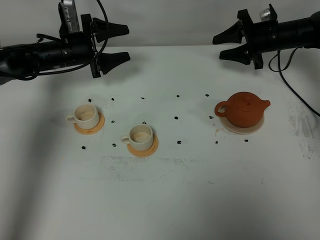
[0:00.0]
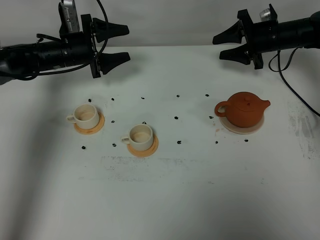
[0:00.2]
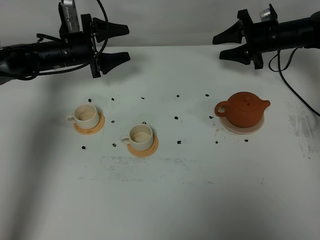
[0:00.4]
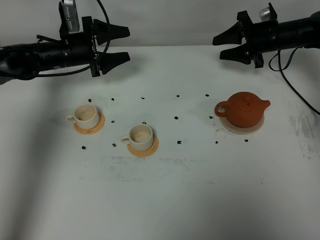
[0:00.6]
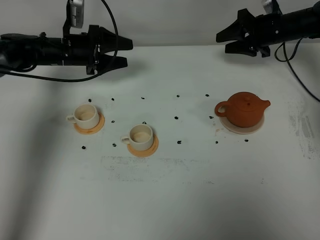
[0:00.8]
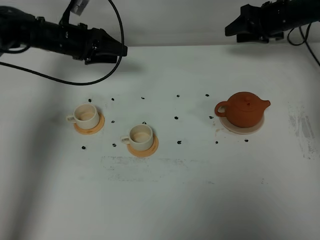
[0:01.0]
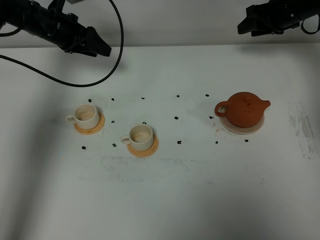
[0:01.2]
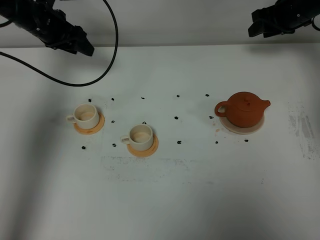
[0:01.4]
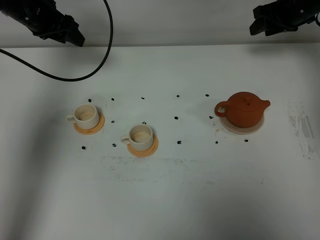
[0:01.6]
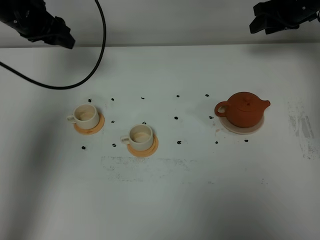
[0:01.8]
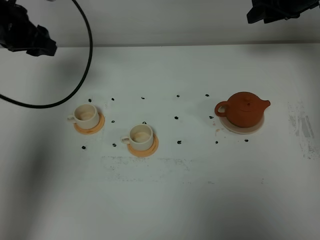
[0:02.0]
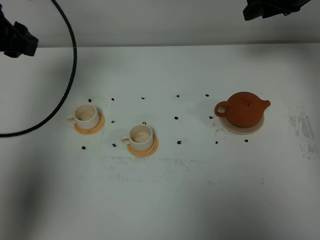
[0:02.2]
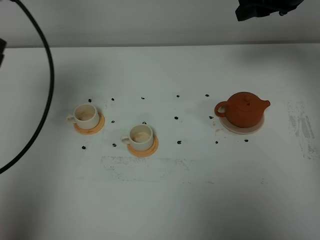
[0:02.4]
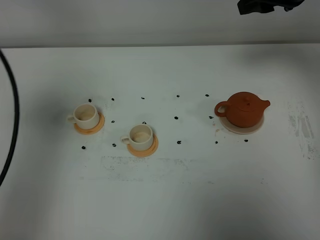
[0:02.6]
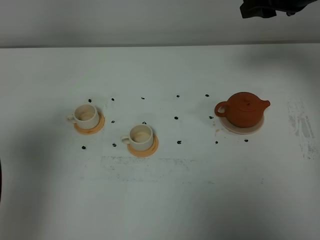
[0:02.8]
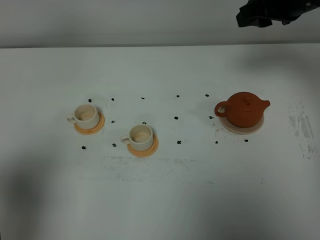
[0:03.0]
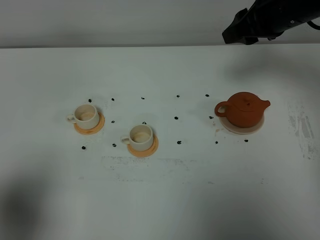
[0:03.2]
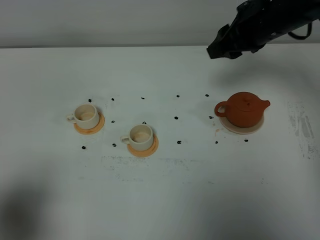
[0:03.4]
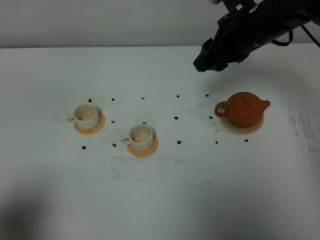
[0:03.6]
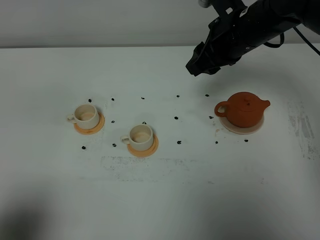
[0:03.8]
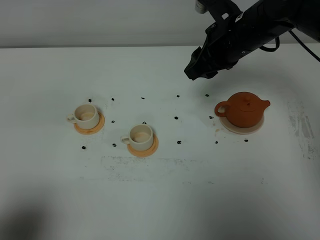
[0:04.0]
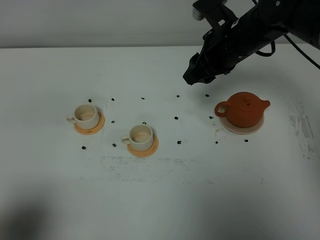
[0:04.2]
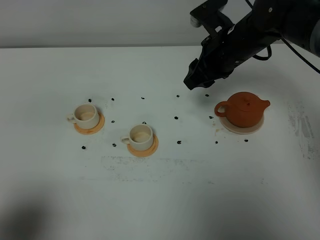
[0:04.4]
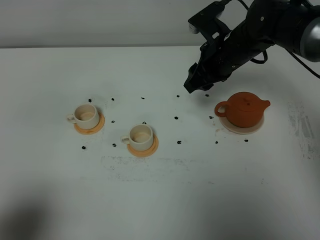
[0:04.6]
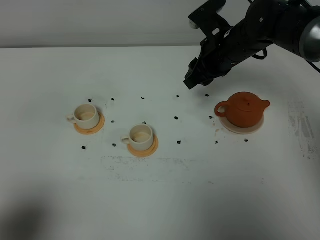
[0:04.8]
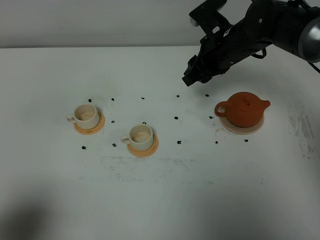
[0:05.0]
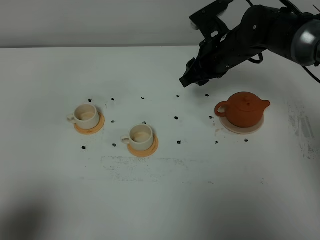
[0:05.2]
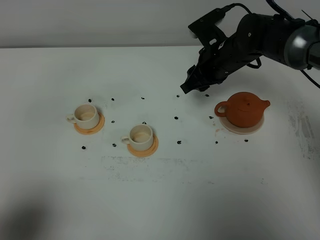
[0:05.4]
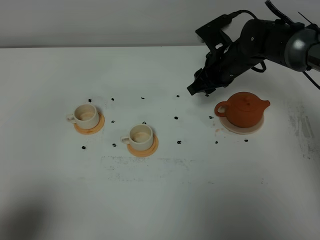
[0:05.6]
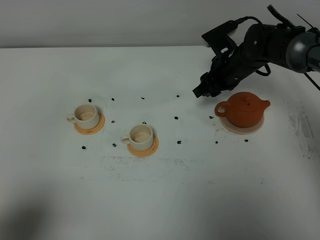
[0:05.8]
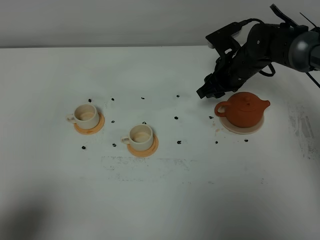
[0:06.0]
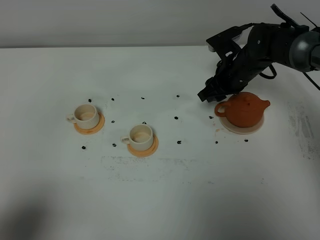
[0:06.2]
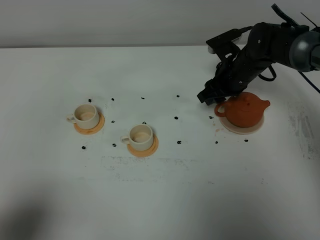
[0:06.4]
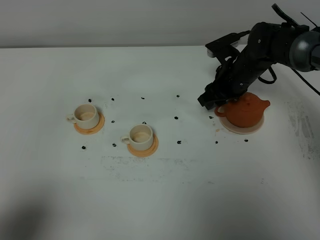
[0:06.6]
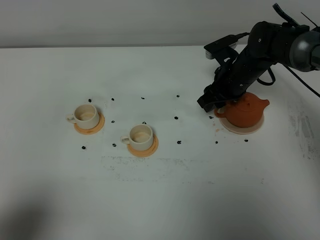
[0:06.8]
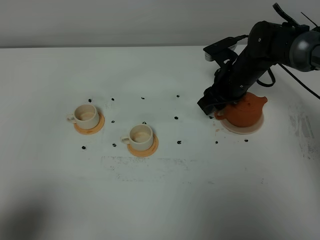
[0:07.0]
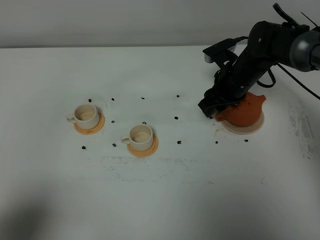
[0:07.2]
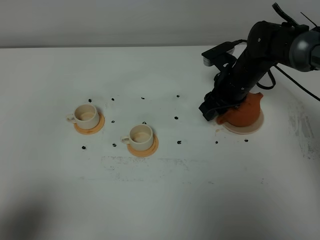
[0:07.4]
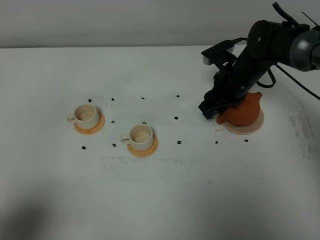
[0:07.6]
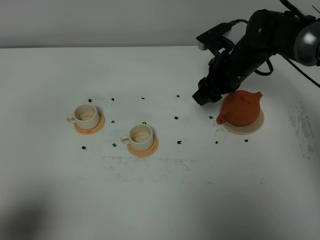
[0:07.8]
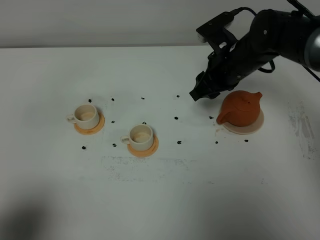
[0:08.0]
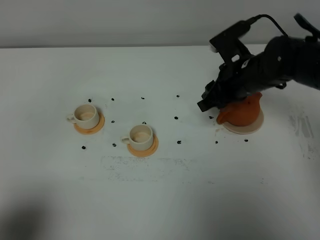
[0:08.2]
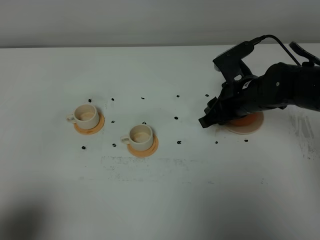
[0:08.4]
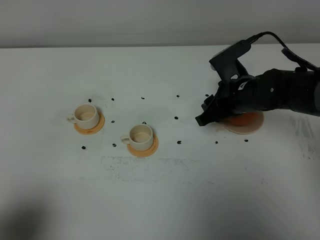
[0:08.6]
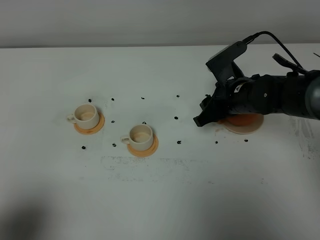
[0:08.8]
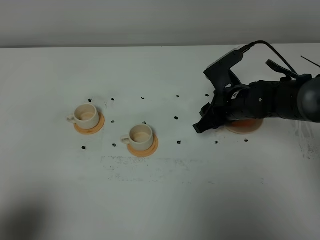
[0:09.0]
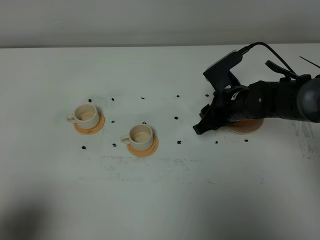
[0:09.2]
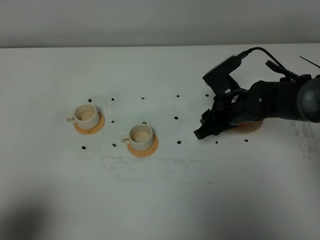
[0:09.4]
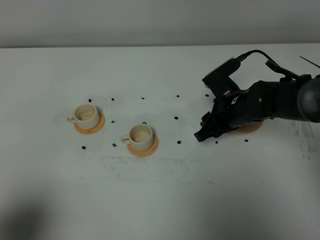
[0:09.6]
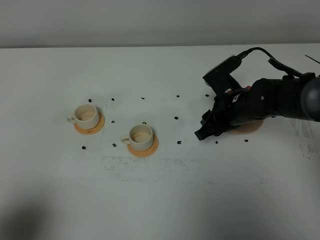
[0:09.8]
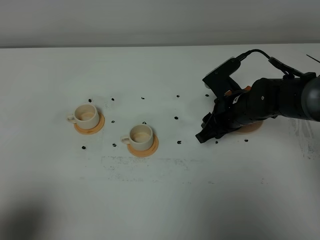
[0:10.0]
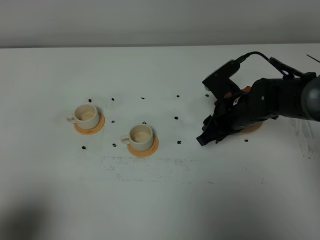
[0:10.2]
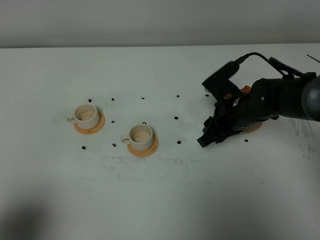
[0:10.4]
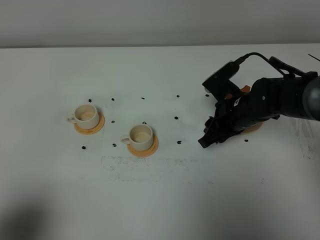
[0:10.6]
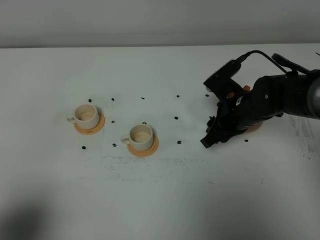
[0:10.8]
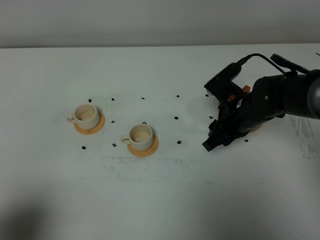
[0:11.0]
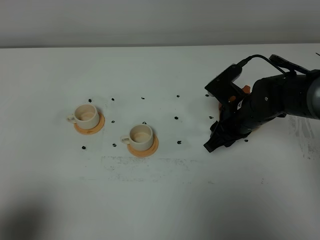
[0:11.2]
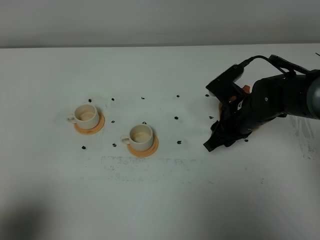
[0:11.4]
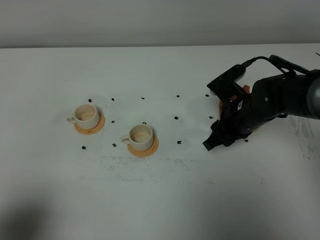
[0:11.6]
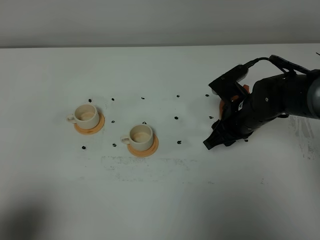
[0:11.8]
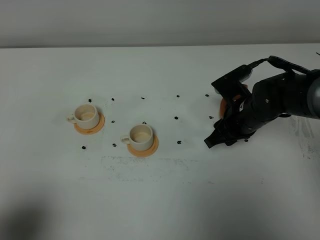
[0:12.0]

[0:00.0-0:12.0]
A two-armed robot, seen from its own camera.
Task of the whole recording: grasp the brown teapot and pour the tea into the two white teacups one by one, put the brown teapot back in its original place.
0:00.0 to 0:01.6: The grippers both shift upward by roughly 10 cm.
0:01.6 to 0:03.0: The left gripper travels backward by about 40 cm, while the right gripper shifts approximately 20 cm backward, upward and to the left.
0:03.0 to 0:04.4: The left gripper goes roughly 10 cm downward and backward, and closes up, while the right gripper moves downward and to the left, about 15 cm.
0:04.4 to 0:06.0: The right gripper is displaced downward by approximately 10 cm.
0:06.0 to 0:07.6: The grippers make only small movements.
0:07.6 to 0:09.0: The right gripper goes roughly 5 cm backward, and goes upward and returns, about 5 cm each way.
0:09.0 to 0:12.0: The grippers stay close to where they were, moving slightly.

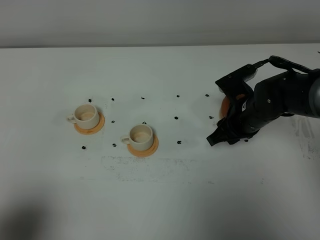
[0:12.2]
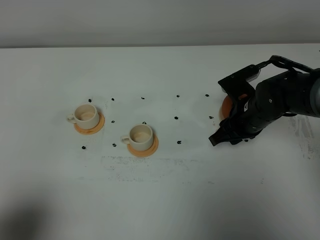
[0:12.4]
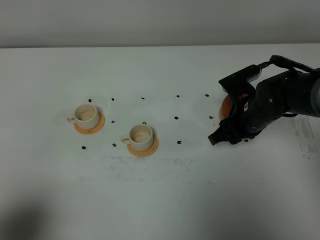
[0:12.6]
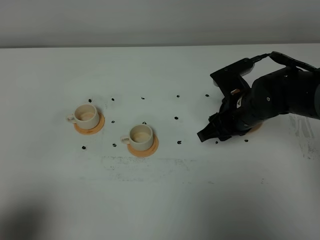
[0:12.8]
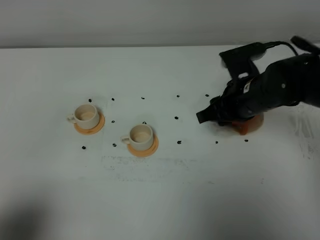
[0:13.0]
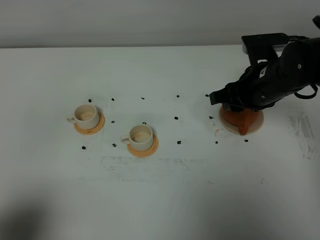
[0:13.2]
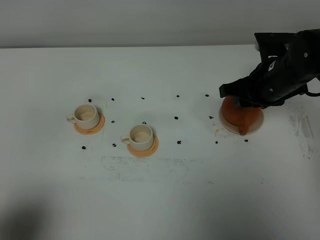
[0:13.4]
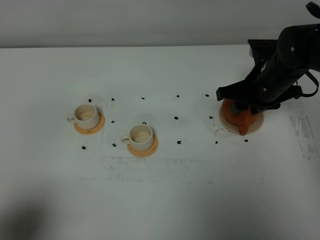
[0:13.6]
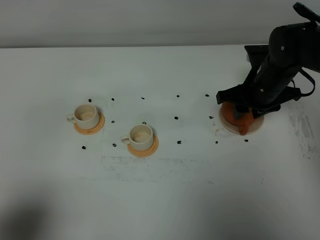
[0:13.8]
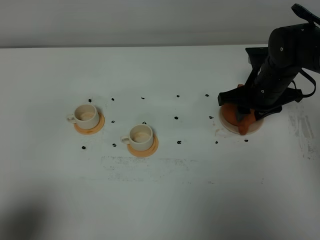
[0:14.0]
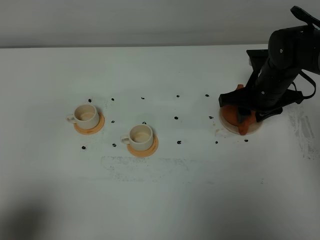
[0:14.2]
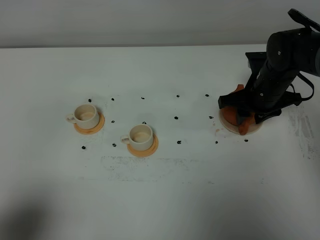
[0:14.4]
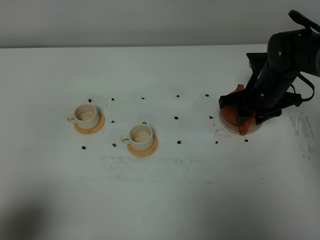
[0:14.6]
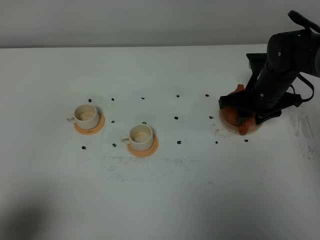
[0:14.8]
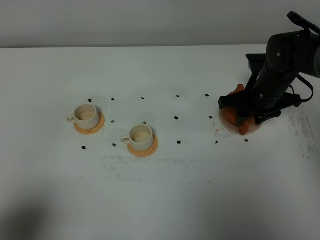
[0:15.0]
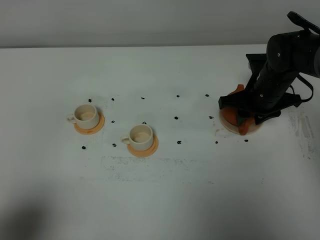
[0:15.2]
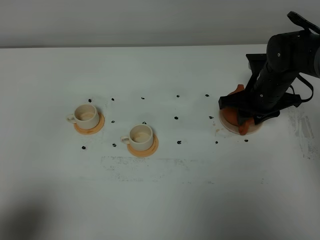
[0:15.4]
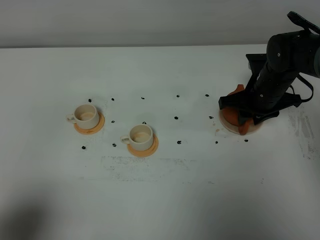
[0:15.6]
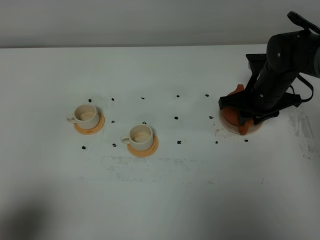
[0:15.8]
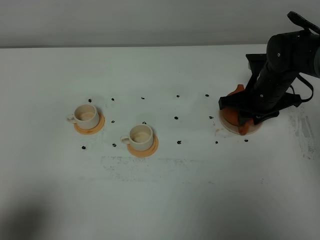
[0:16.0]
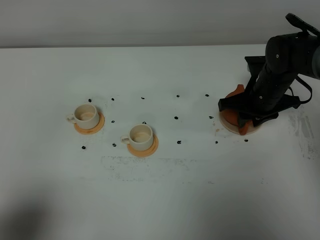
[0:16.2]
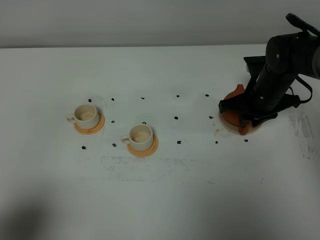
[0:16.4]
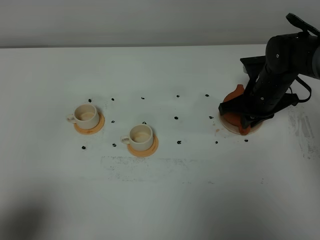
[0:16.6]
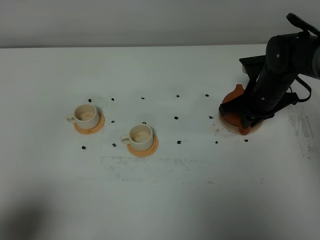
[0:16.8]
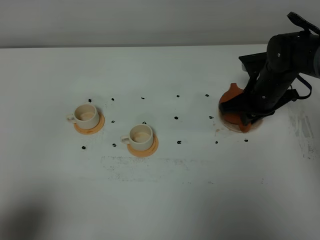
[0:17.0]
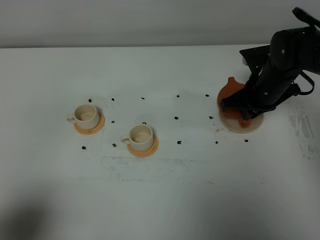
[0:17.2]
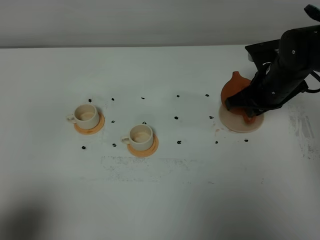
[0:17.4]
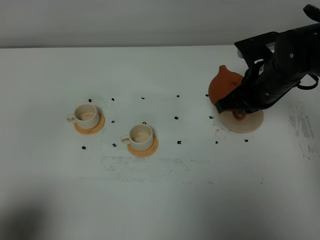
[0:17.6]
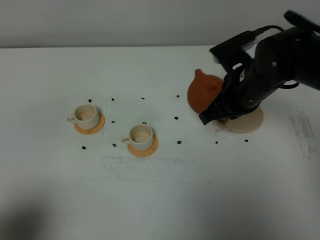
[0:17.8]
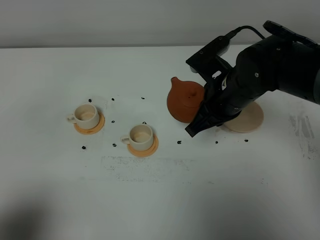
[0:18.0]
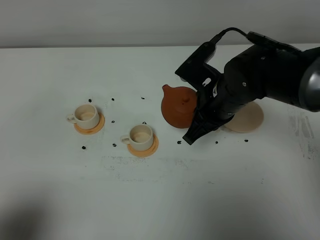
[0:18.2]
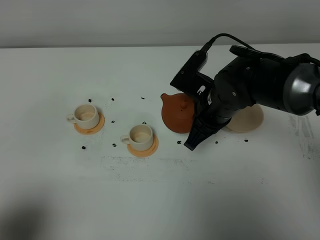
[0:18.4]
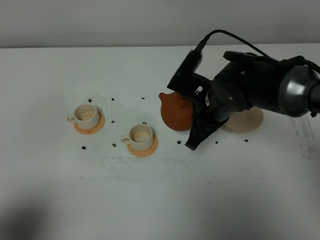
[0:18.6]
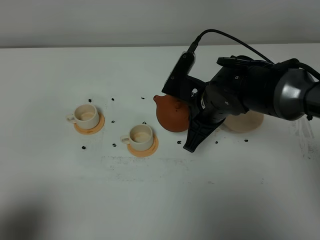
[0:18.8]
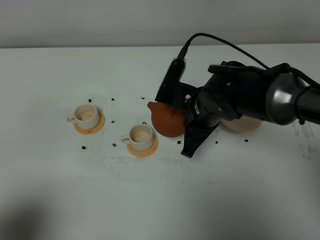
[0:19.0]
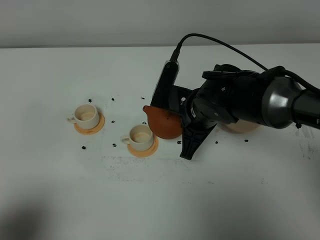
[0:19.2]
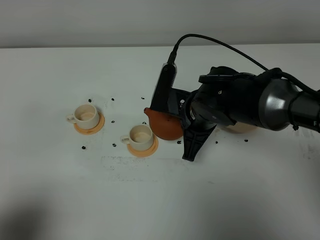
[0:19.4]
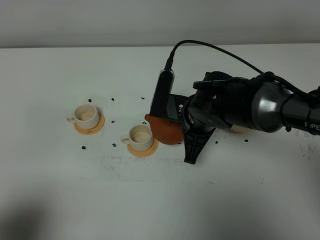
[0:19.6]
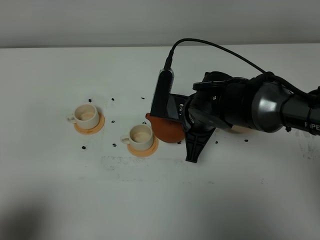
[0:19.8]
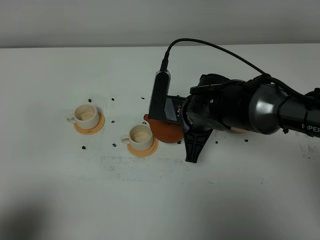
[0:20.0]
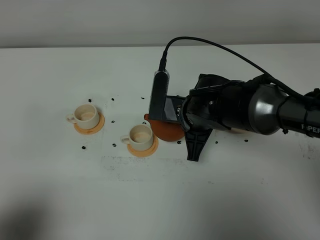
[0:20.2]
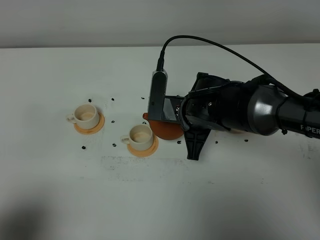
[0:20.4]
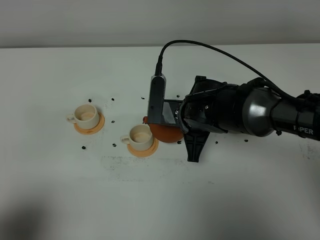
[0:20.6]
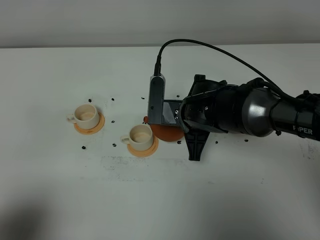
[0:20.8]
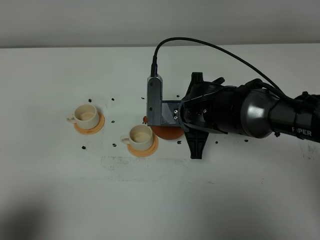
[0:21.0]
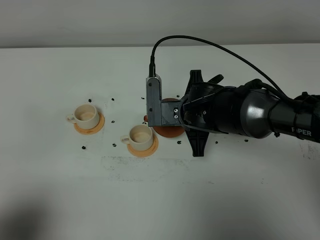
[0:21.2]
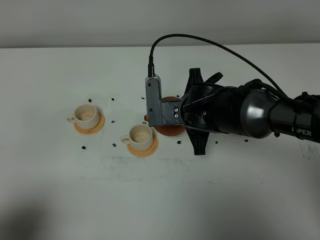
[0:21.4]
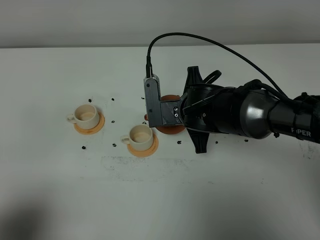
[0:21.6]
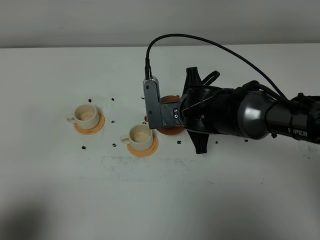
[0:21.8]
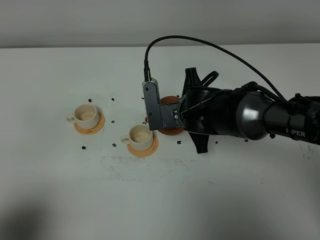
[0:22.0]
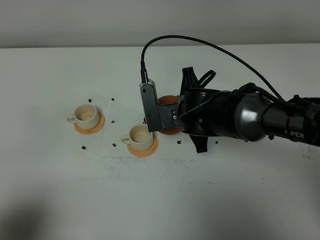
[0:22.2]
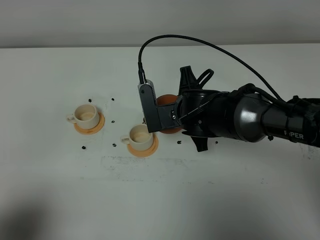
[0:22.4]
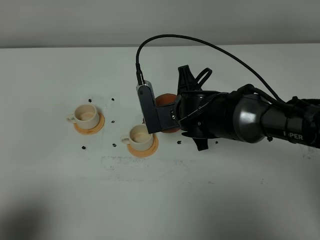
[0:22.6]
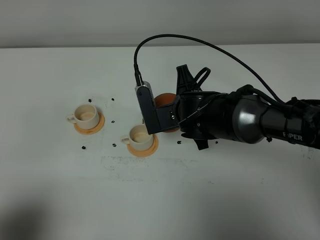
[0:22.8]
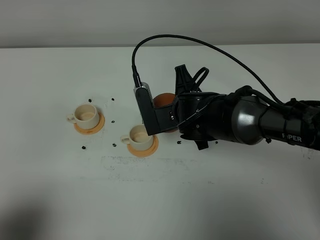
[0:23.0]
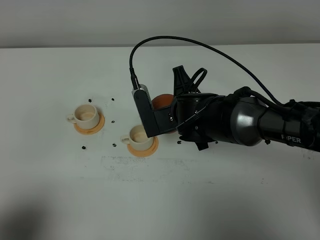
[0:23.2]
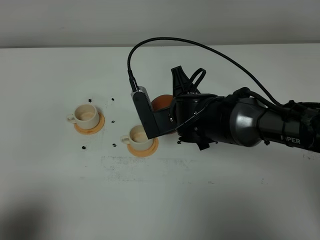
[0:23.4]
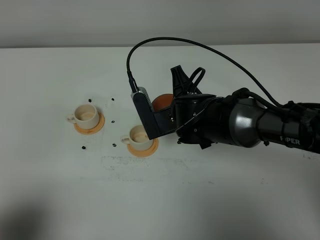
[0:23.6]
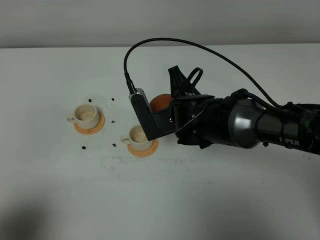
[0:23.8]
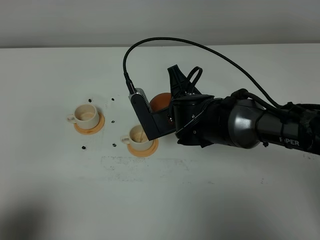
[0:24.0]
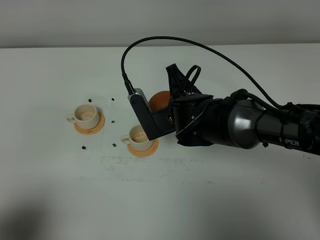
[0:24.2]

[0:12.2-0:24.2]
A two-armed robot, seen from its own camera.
Task of the whole recording: grasp the brown teapot and pour the tea into the two white teacups one by one, put the brown teapot back in its original place.
0:12.2 to 0:13.8: The right gripper changes place by approximately 5 cm.
0:13.8 to 0:15.2: There are only small adjustments of the grippers.
0:15.2 to 0:16.6: The right gripper closes up.
0:16.6 to 0:18.2: The right gripper shifts approximately 15 cm to the left, backward and upward.
0:19.8 to 0:21.2: The grippers move only a little.
0:21.2 to 0:22.6: The grippers move only a little.
0:22.6 to 0:24.2: The grippers make only small movements.
